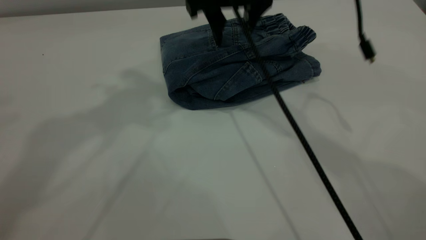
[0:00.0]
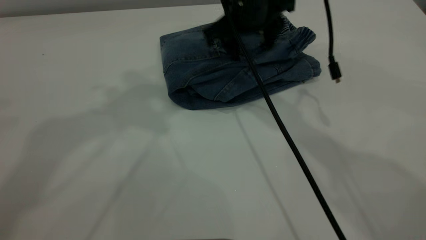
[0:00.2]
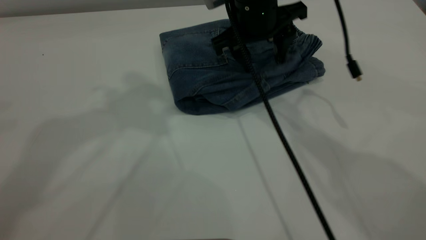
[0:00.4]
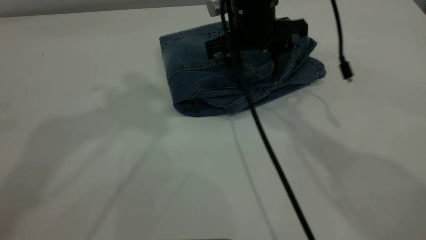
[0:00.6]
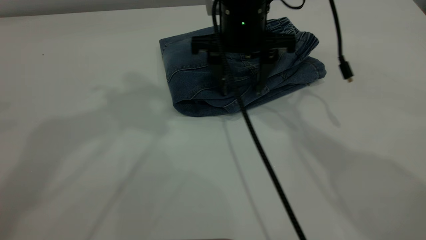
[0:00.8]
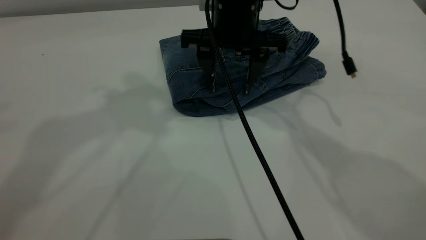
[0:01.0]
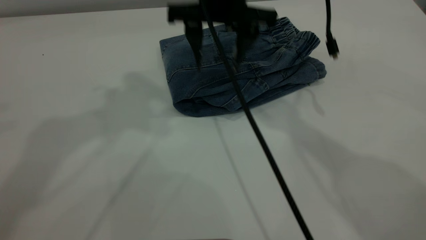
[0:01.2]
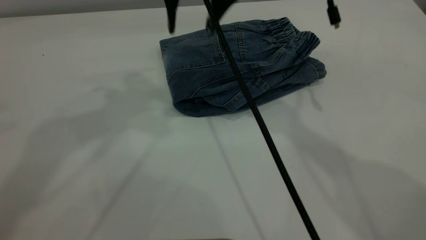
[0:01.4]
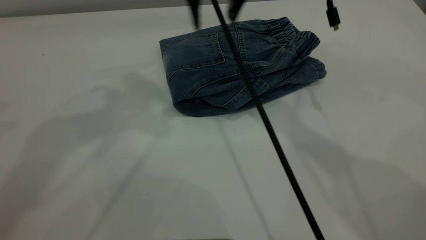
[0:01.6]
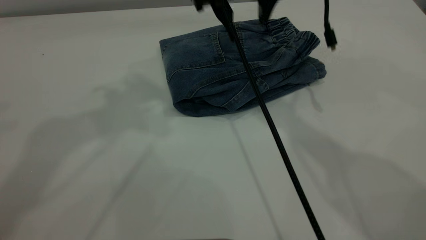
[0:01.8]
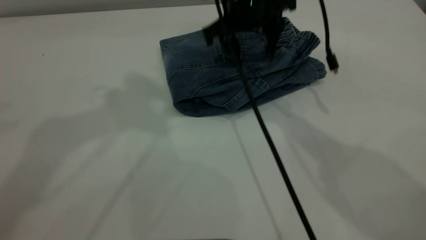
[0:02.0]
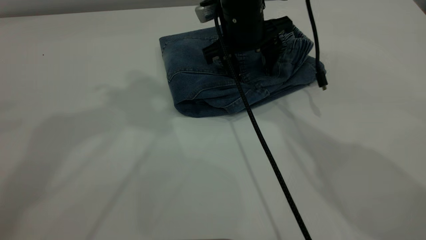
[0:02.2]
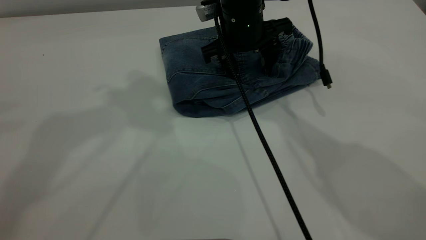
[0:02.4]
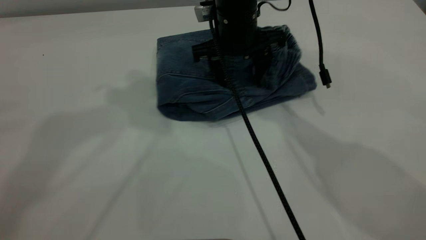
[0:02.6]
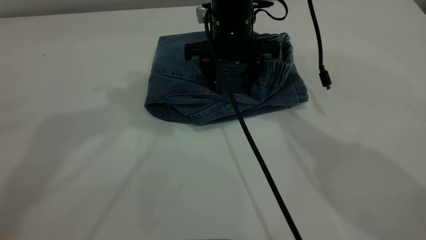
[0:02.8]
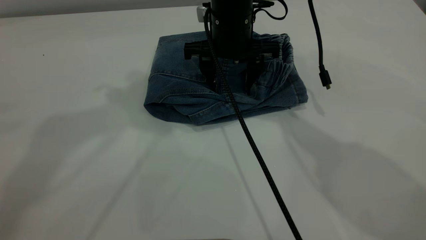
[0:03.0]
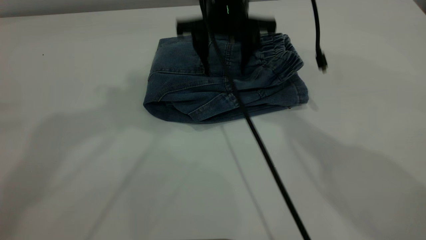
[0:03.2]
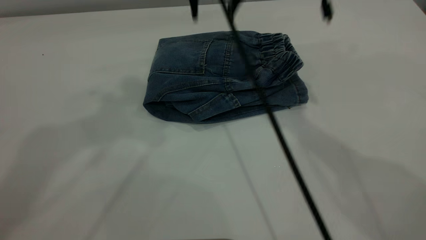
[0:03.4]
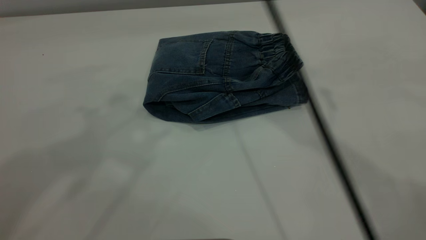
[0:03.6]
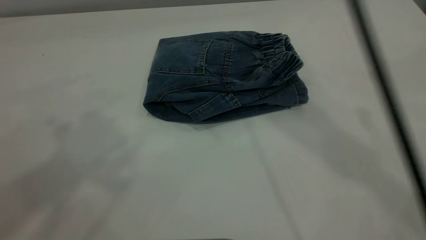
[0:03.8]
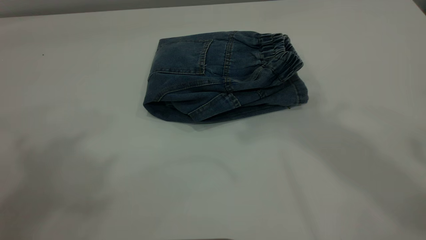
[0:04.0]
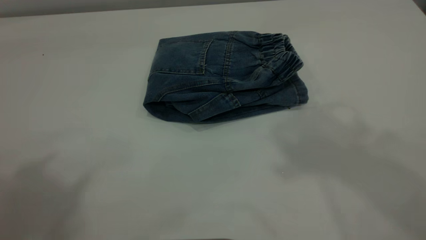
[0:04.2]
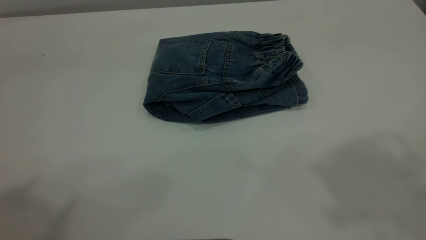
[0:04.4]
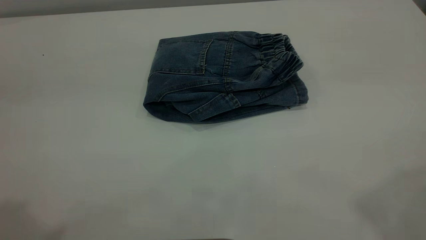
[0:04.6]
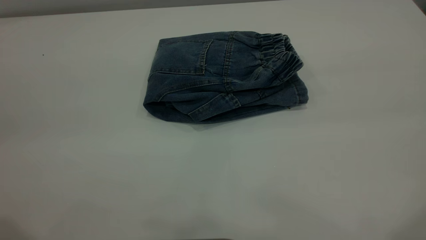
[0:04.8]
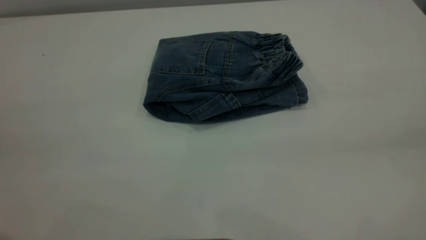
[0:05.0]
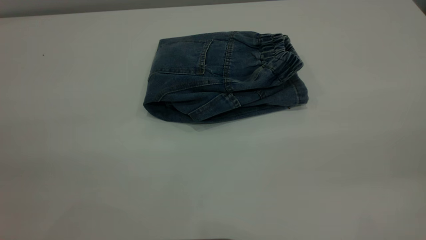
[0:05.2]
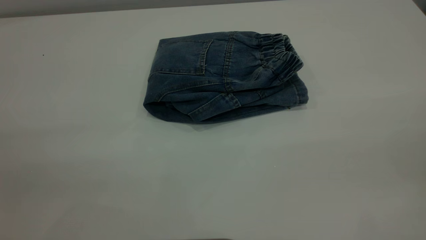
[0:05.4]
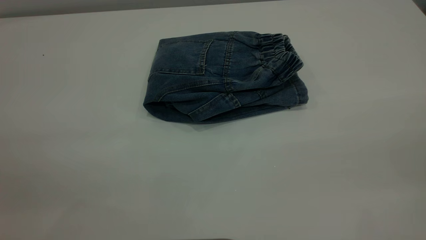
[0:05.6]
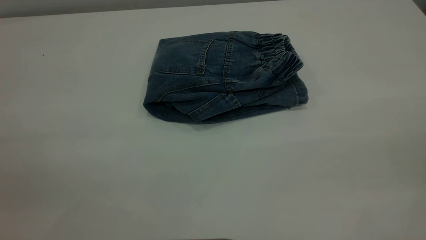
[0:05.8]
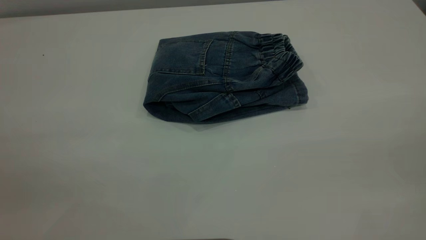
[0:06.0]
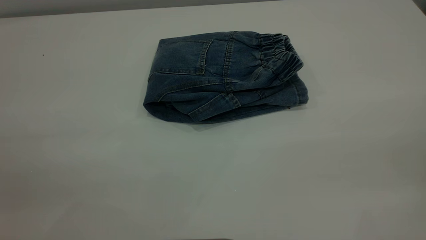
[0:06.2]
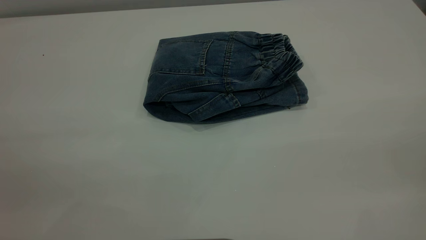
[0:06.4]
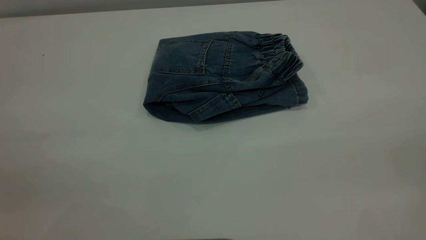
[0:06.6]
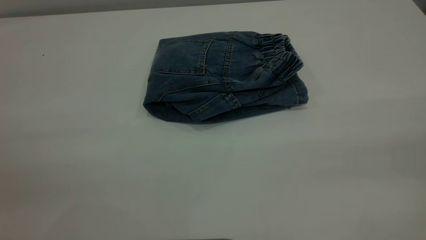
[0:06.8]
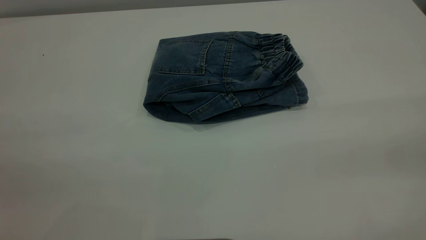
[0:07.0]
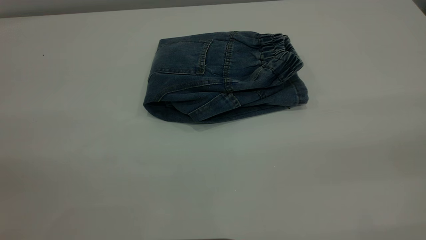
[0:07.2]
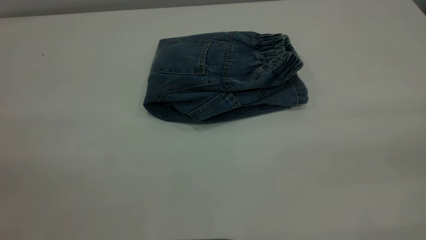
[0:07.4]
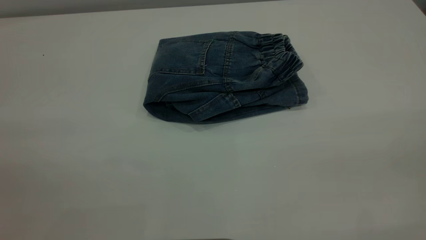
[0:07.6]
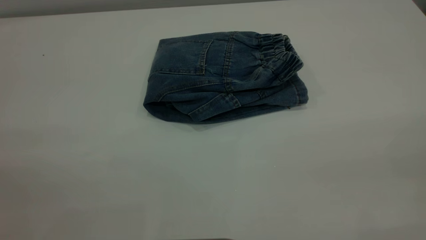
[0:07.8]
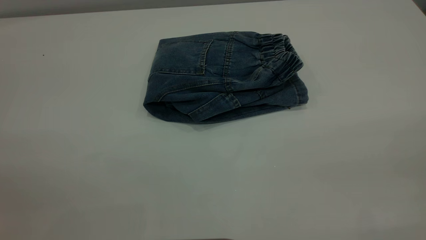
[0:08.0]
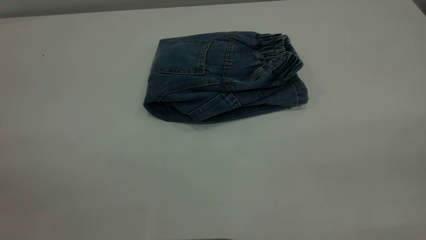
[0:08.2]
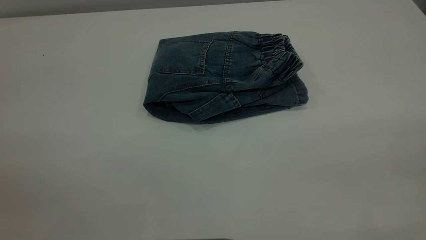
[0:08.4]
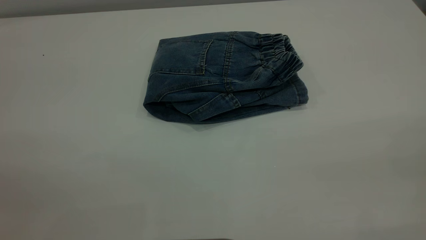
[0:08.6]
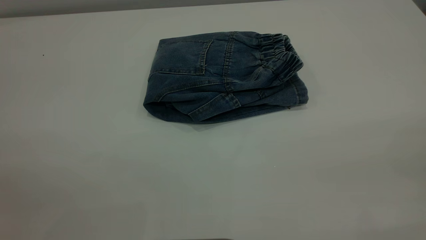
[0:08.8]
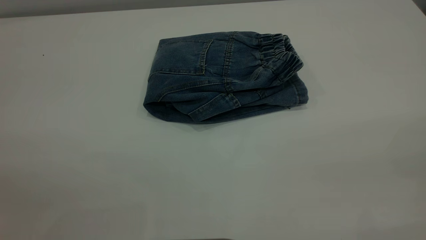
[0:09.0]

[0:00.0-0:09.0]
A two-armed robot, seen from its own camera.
0:00.0 to 0:01.6: The right gripper is displaced upward by roughly 5 cm.
0:01.6 to 0:03.0: The right gripper shifts approximately 10 cm downward.
0:03.0 to 0:04.4: The left gripper travels backward by approximately 20 cm. Meanwhile the right gripper shifts roughly 50 cm upward, backward and to the right.
